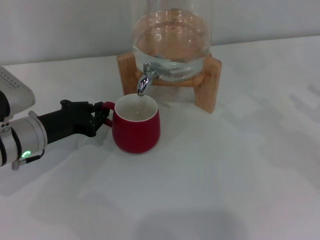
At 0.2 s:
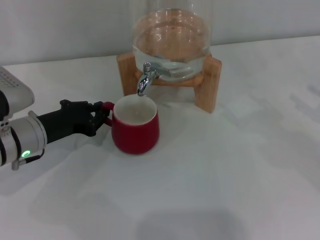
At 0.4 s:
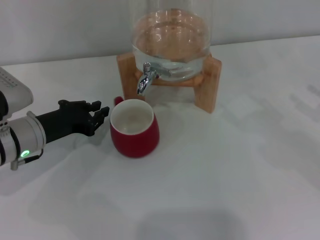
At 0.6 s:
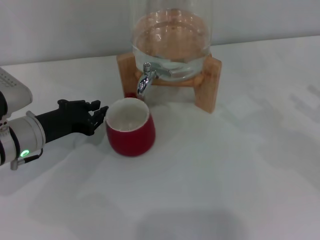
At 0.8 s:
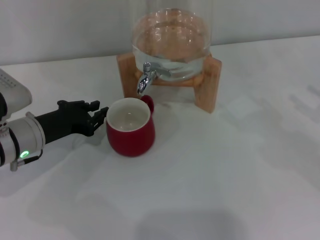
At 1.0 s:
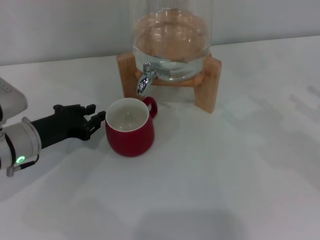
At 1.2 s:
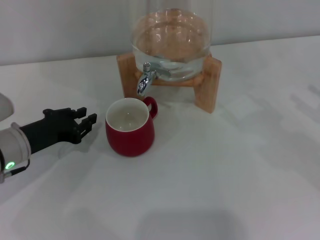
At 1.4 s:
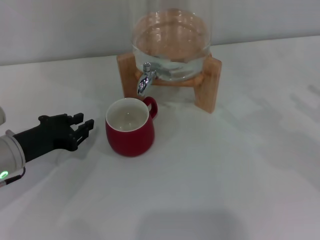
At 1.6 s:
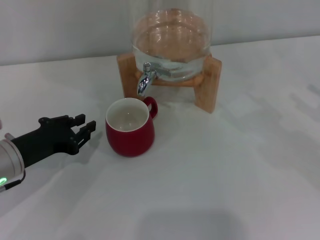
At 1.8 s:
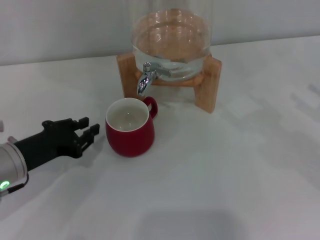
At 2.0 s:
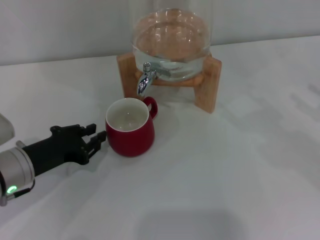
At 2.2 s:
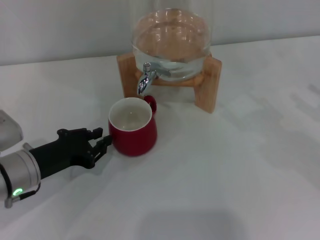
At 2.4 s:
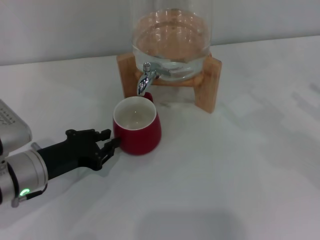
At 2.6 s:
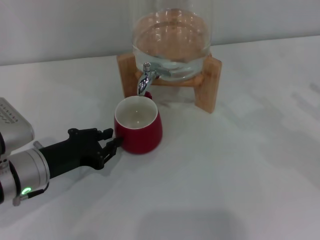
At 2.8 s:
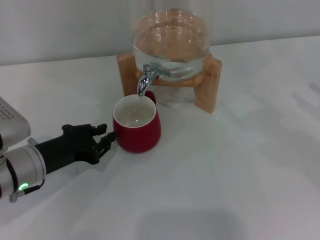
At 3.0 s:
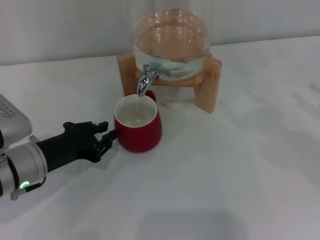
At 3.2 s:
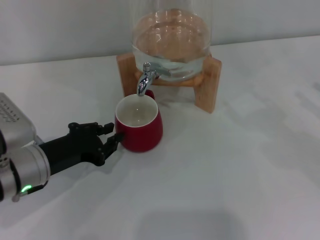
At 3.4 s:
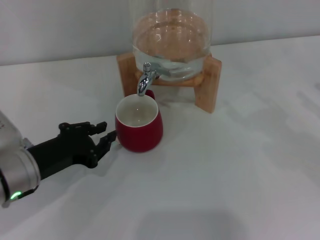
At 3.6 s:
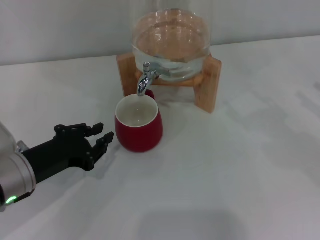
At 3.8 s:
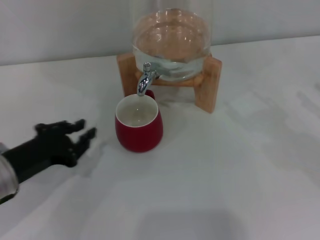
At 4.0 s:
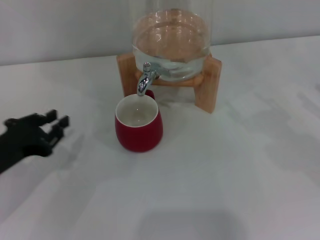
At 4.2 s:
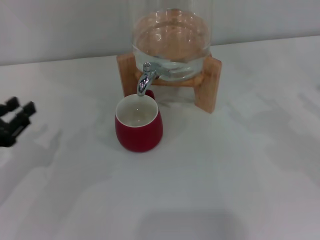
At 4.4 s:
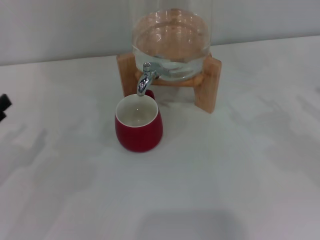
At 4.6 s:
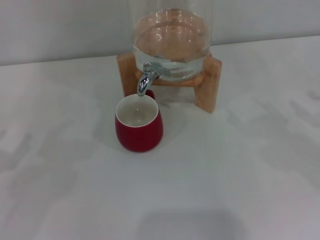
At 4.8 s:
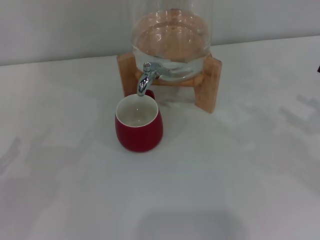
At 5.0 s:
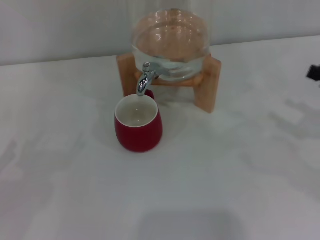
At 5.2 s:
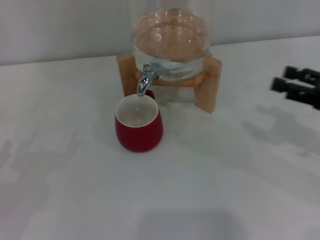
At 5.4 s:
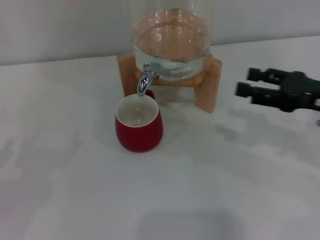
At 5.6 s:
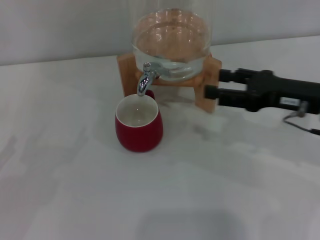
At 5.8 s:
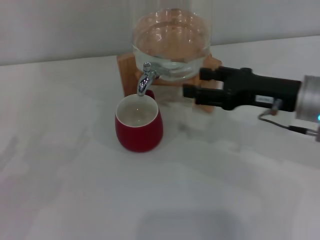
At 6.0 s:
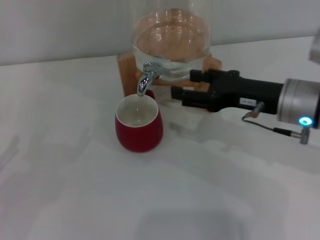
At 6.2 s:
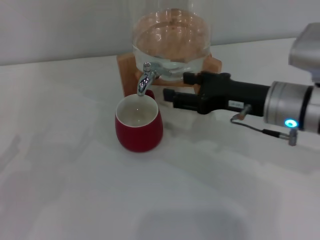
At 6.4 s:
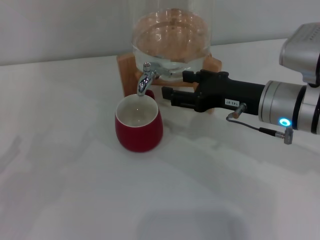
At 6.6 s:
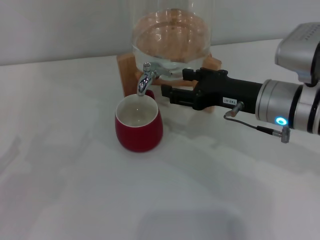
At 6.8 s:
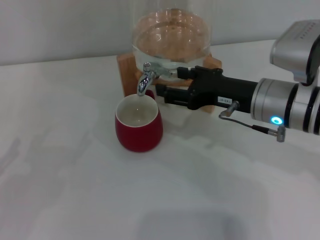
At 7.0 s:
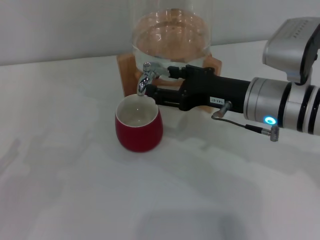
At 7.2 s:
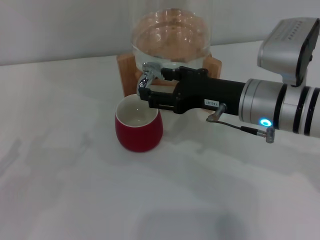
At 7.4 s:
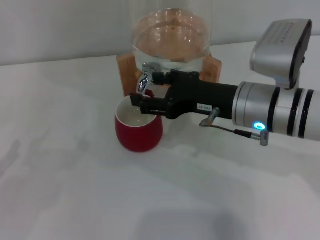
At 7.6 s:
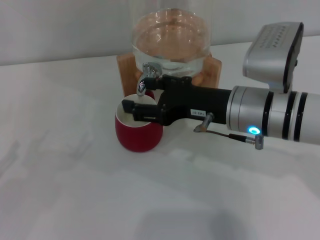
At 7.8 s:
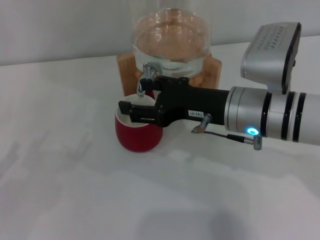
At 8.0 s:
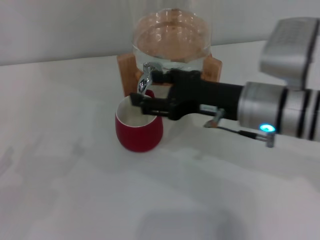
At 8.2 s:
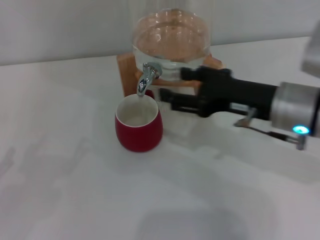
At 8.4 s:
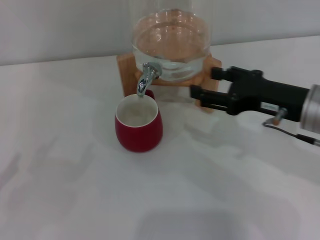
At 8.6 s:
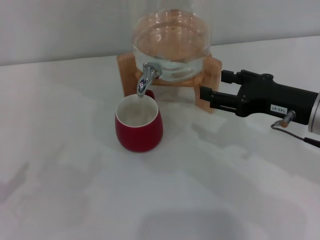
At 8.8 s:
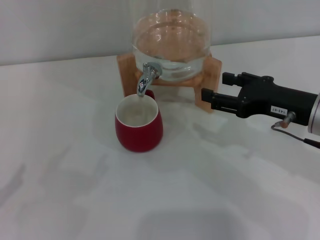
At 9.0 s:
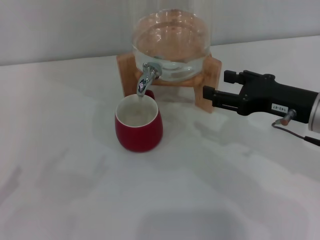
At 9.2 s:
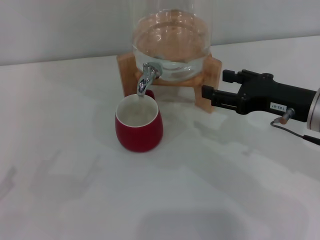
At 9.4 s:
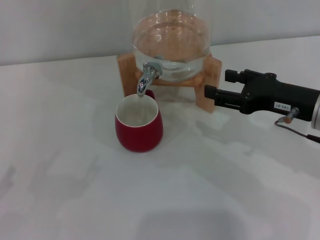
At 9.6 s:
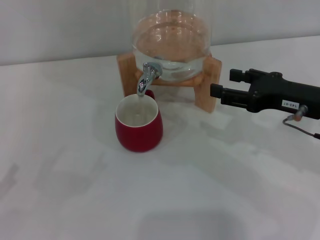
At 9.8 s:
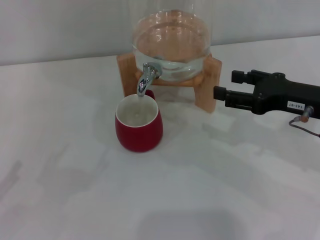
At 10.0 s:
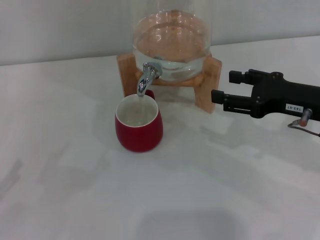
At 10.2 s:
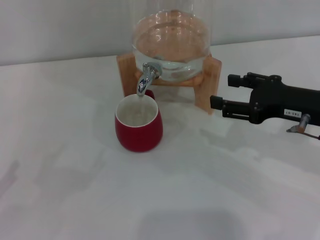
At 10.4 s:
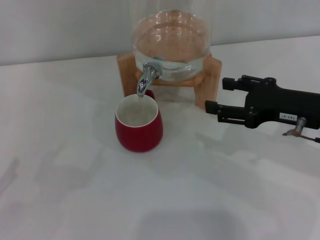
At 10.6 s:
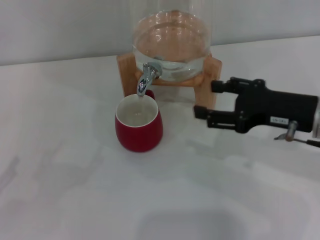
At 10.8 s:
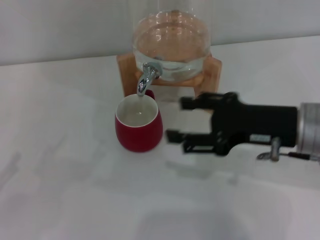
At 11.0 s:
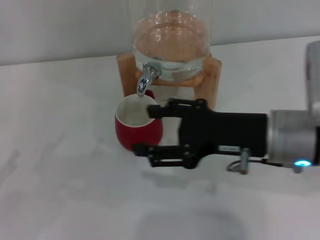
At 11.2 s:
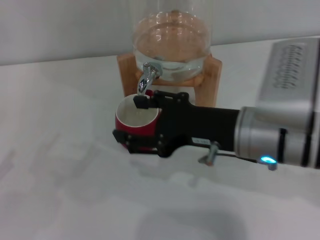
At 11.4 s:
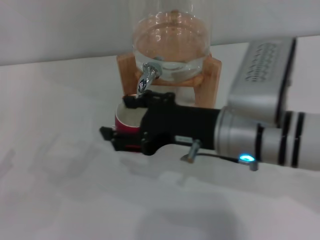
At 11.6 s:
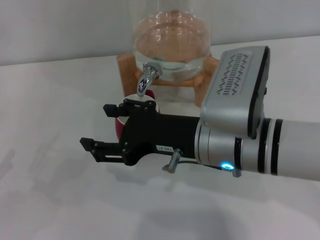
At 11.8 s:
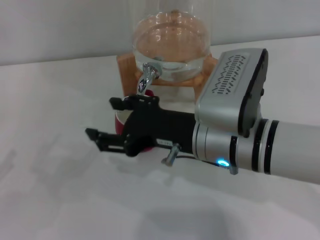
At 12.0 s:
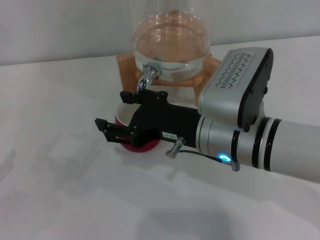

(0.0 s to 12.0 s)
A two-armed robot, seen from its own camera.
Task of the whole recording: the left gripper pick up the red cup and place it horizontally under the faucet, the right gripper turn on the faucet to fill the cup, and then turn off the faucet.
Step, 1.8 s - 8.0 s: Open the dispenser valve and fill the cup with water with the right gripper.
0.0 s - 1.6 s: The left gripper moves approximately 5 cm.
1.6 s - 3.0 s: There are only small adjustments of the grippers.
3.0 s - 4.4 s: The left gripper moves to the left and backward, roughly 15 cm.
4.4 s - 6.0 s: The right gripper goes some 20 cm to the left; the left gripper ends up about 5 cm from where it was, and opens up.
6.0 s - 7.6 s: The right gripper heads to the left, covering some 5 cm.
7.6 s - 9.0 s: The right gripper moves to the right, roughly 10 cm, while the left gripper goes about 5 cm backward.
9.0 s - 10.4 s: The grippers make only small movements.
10.4 s - 12.0 s: The right gripper goes about 15 cm to the left.

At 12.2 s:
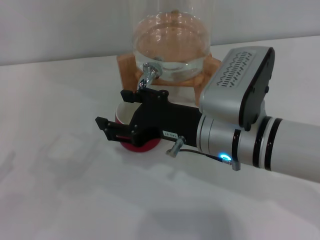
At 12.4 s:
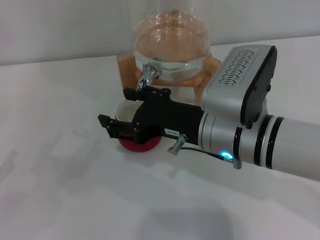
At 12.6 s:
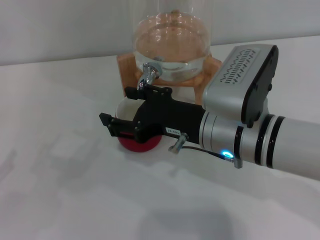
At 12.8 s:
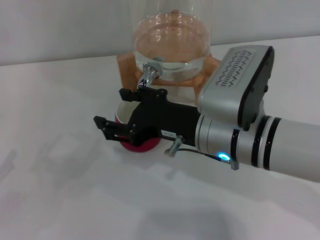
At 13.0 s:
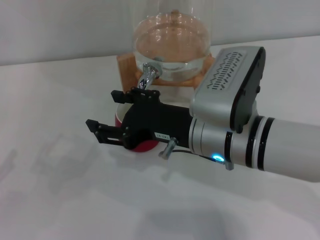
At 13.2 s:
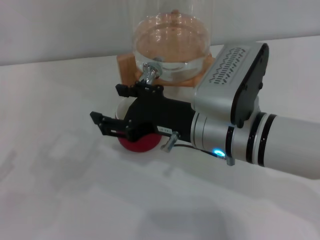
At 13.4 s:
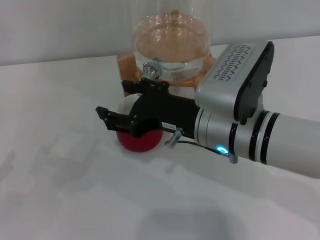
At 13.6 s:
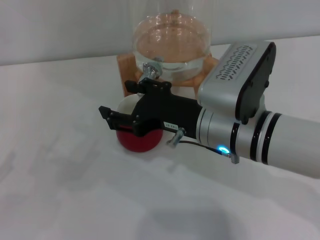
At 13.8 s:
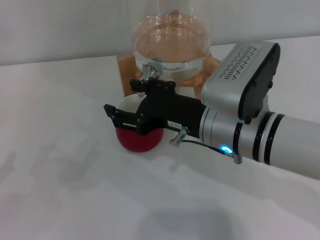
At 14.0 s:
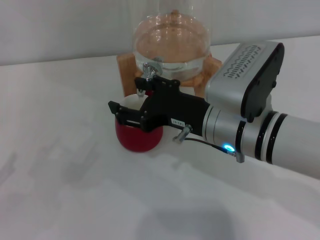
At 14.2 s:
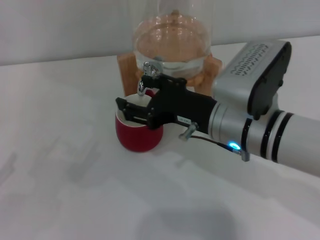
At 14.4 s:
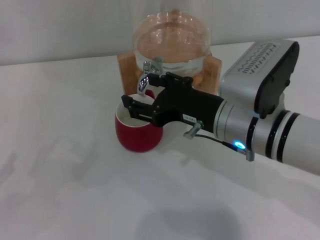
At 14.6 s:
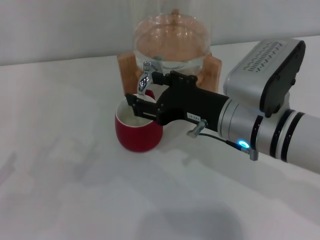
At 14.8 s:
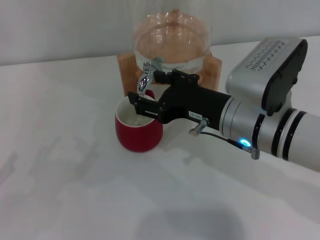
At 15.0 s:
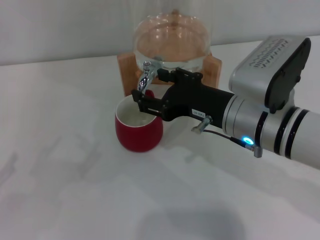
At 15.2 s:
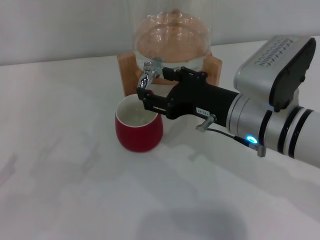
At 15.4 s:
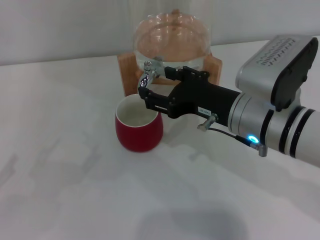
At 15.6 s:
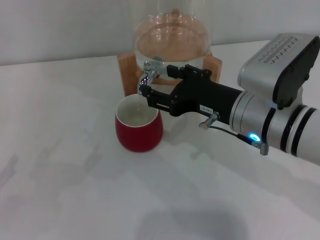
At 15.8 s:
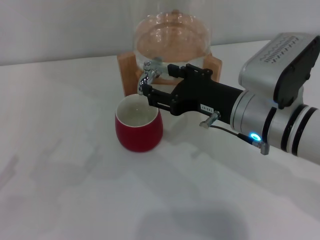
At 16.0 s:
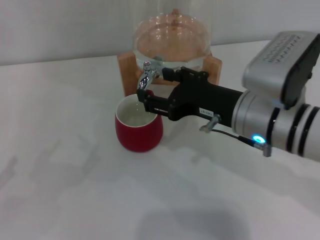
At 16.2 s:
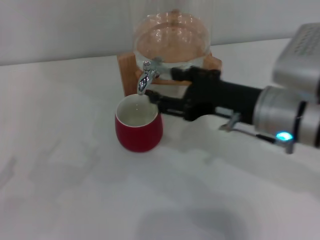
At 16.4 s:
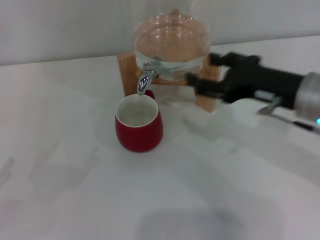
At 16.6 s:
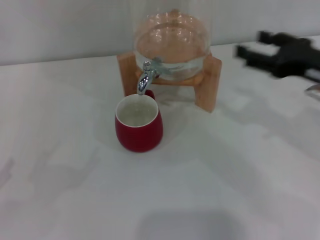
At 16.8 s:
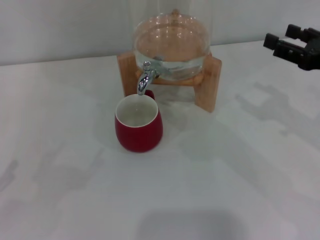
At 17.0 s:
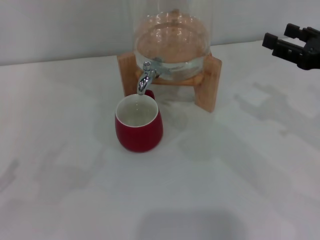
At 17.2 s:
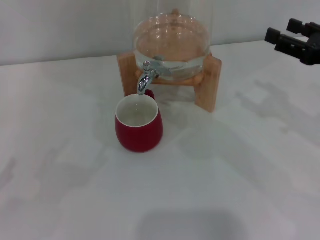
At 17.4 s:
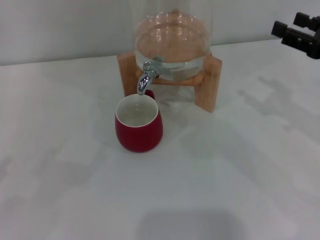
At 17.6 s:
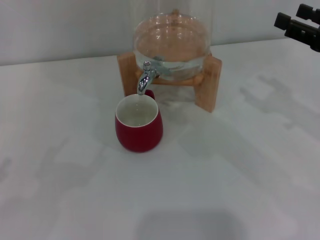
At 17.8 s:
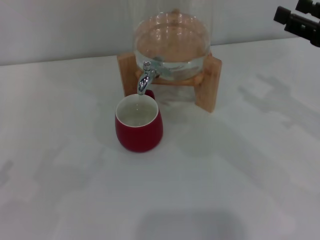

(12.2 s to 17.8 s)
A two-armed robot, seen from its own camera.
Task of the whole recording: the left gripper pick up the red cup and place it horizontally under the faucet, the right gripper turn on the faucet to fill the cup, and then turn off the faucet.
Step, 12.2 s - 16.0 s: Close the dispenser valve with the right gripper.
12.2 s - 13.6 s: Neither gripper changes place.
13.6 s - 15.0 s: The grippers move only a little.
15.0 s - 16.4 s: The right gripper travels to the right by about 10 cm.
16.4 s - 17.8 s: The right gripper heads to the right, covering about 10 cm.
